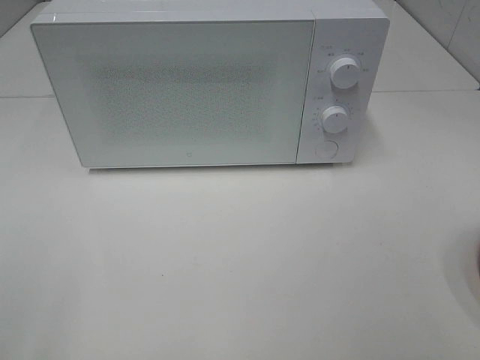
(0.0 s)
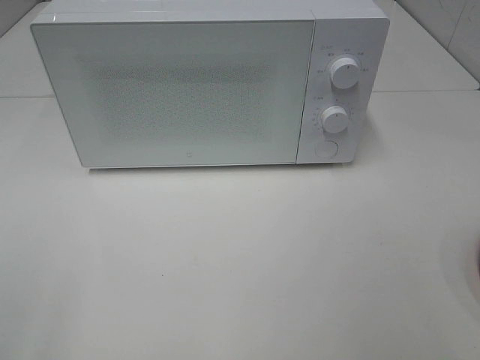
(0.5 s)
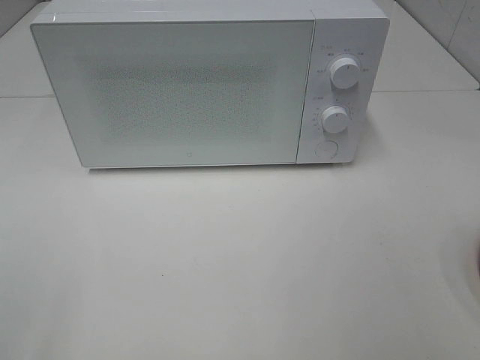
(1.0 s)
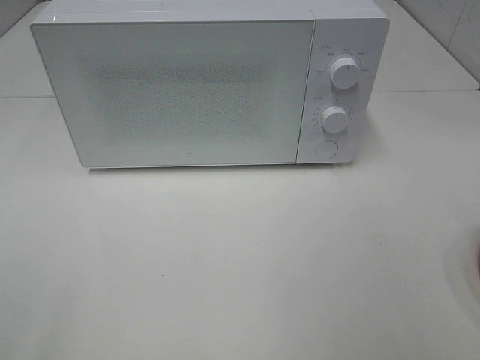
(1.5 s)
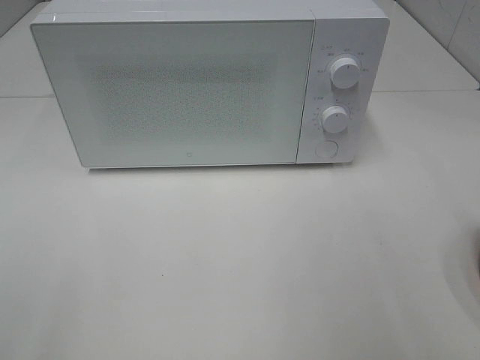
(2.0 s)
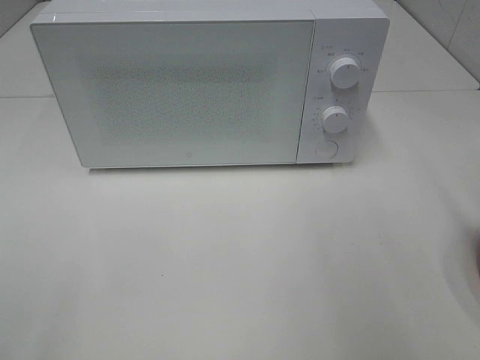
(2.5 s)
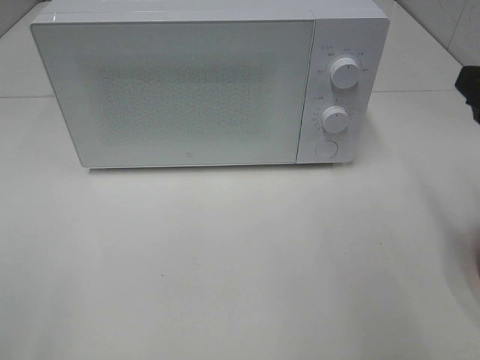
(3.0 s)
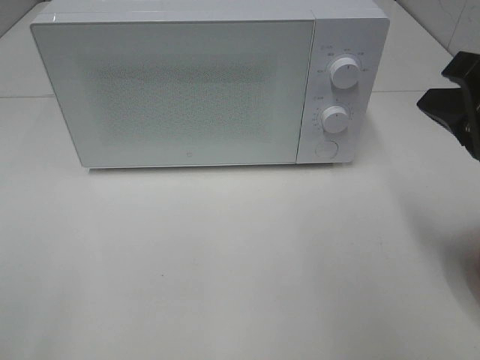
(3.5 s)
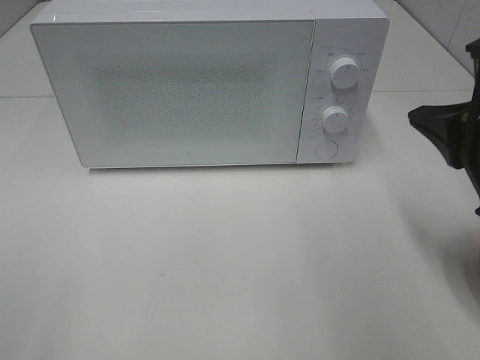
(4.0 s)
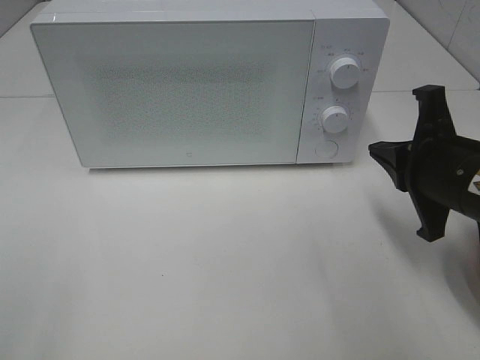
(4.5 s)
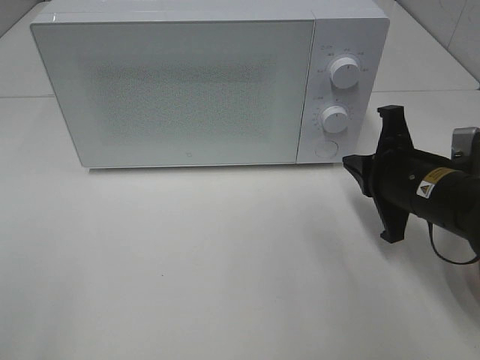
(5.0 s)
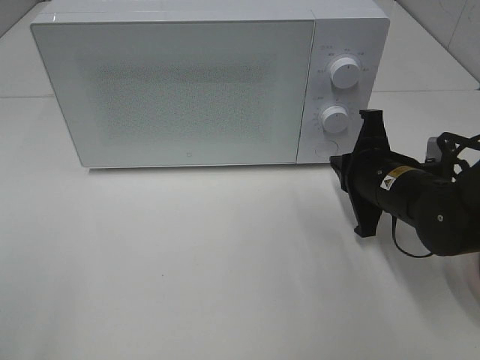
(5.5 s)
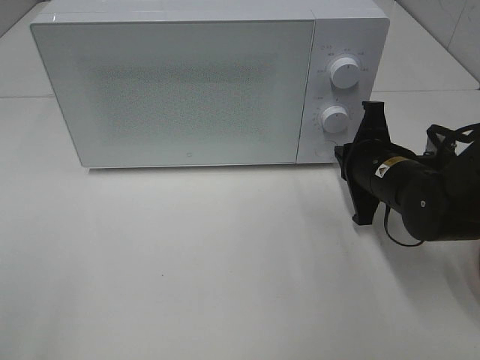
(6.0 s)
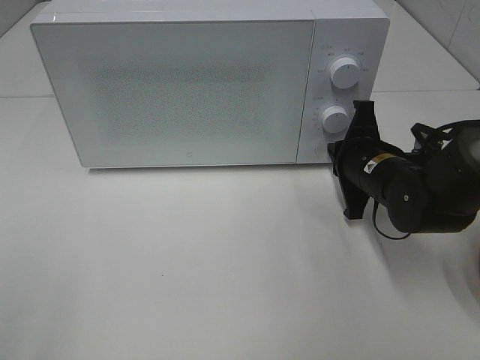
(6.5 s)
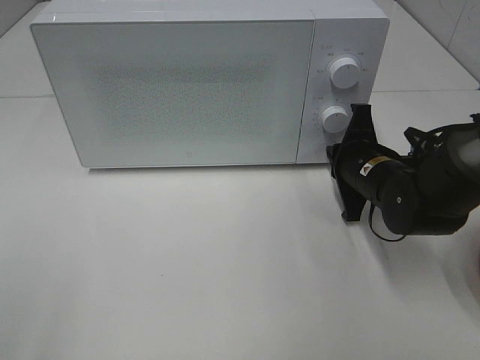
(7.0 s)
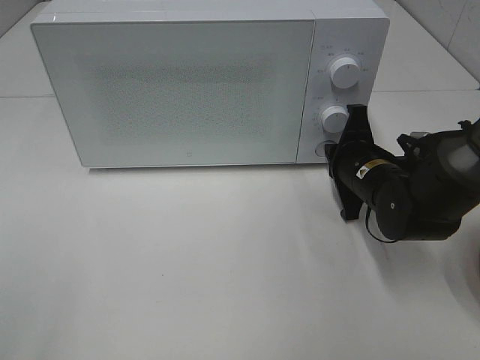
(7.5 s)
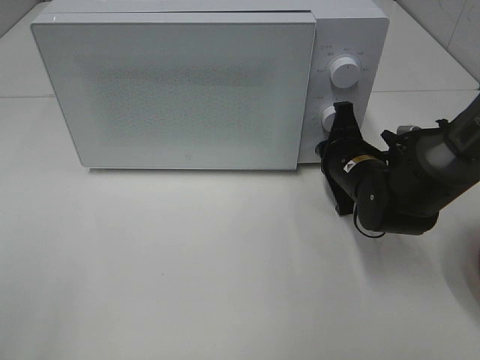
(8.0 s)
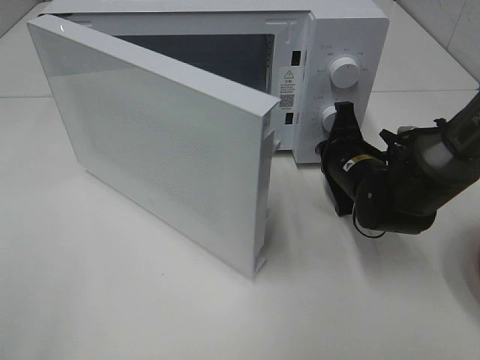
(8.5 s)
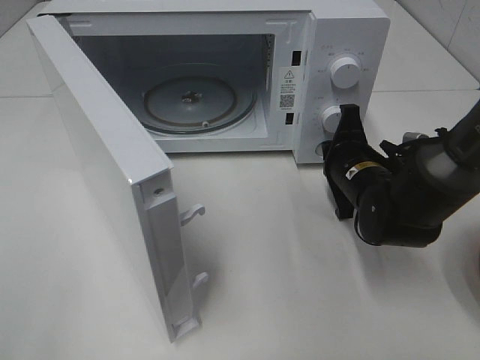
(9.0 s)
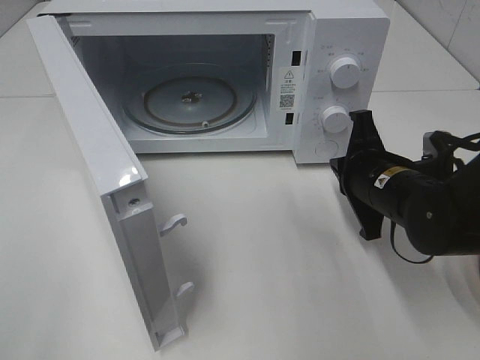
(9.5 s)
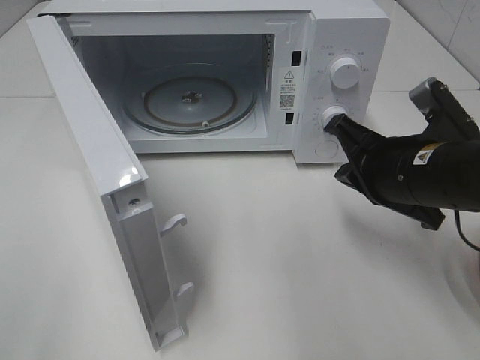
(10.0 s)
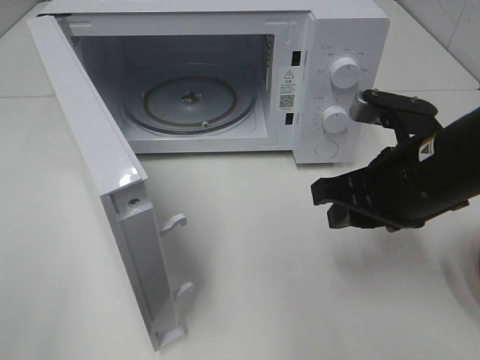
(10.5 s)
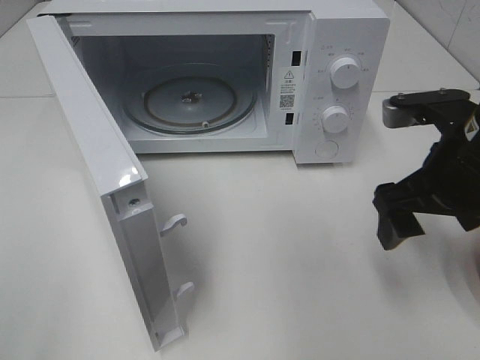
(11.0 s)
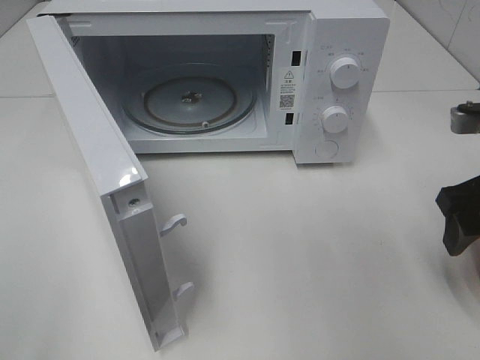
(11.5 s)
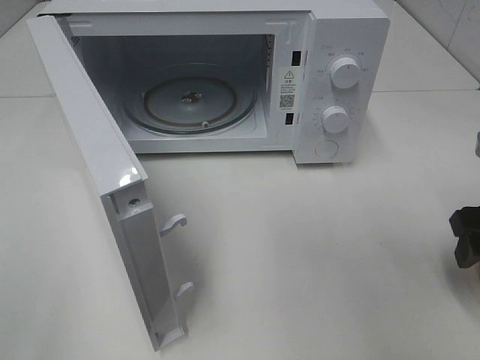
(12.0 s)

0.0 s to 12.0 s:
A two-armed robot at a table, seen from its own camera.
Task of the whole recording: Heat the burger.
Step, 0.0 to 9.0 s: Right hand: press the switch.
2.0 to 4.0 s: The right gripper shifts about 15 cm downward, forward and to the left, and closes up.
4.0 to 6.0 s: The right gripper travels downward and forward by roughly 20 cm.
6.0 to 8.0 s: The grippers make only small movements.
8.0 to 10.0 s: The right gripper is displaced backward and upward by about 15 cm.
10.0 to 12.0 s: The right gripper heads to the right, covering roughly 10 cm, and opens its fingers.

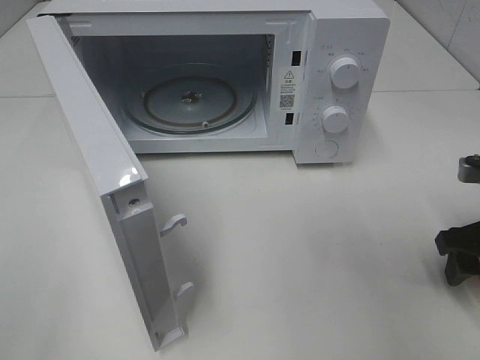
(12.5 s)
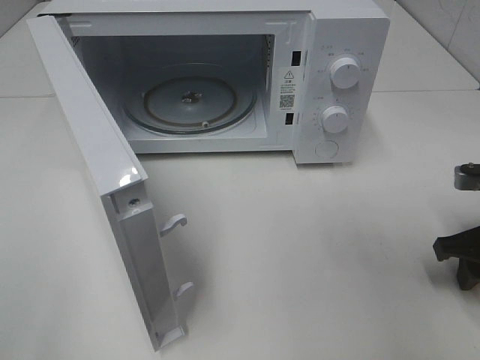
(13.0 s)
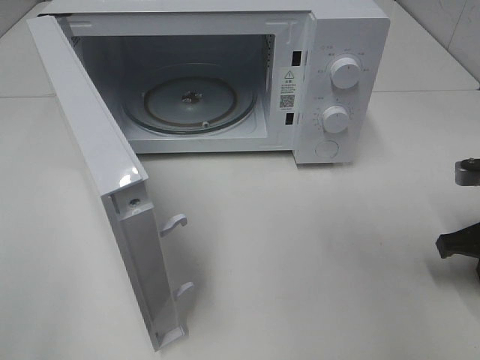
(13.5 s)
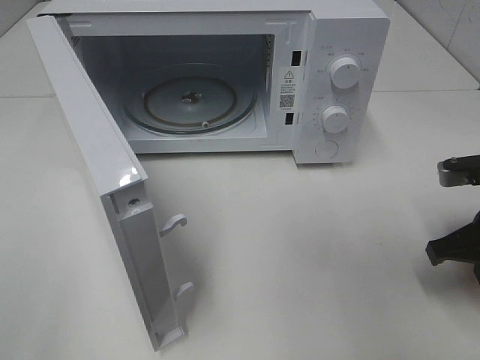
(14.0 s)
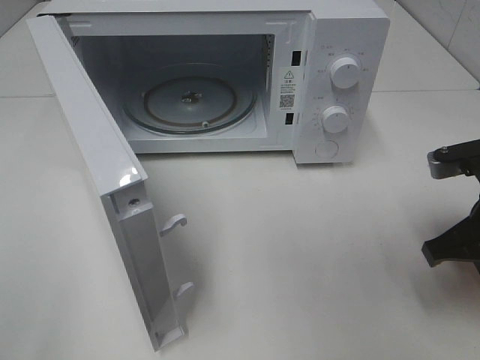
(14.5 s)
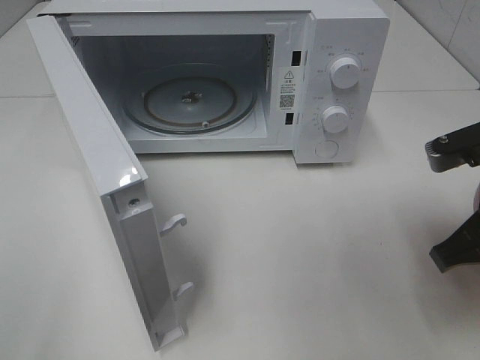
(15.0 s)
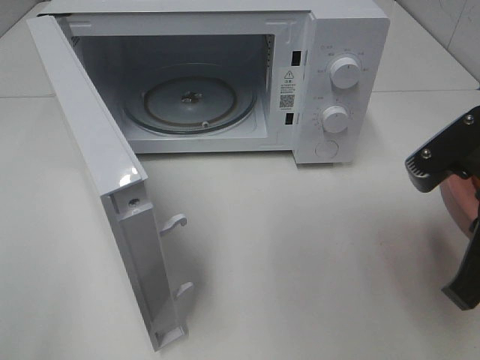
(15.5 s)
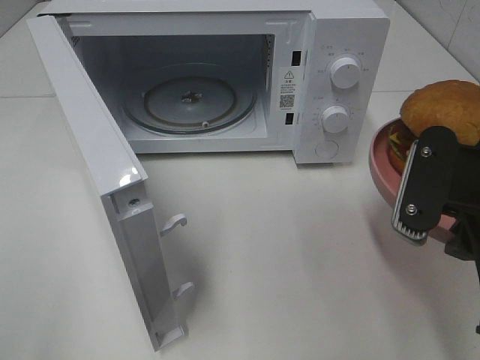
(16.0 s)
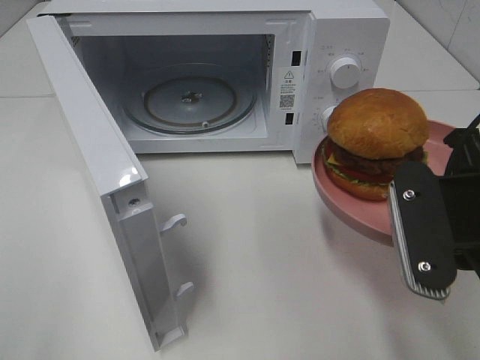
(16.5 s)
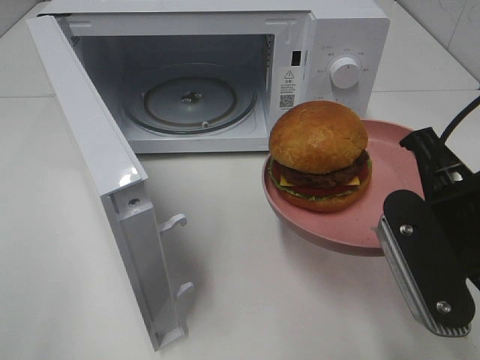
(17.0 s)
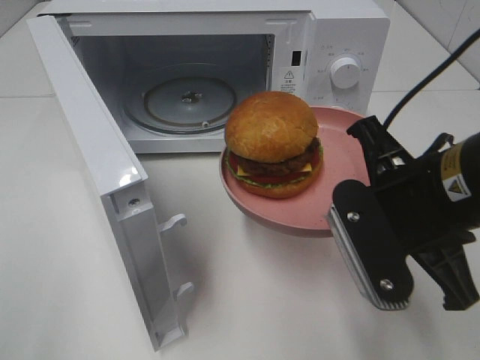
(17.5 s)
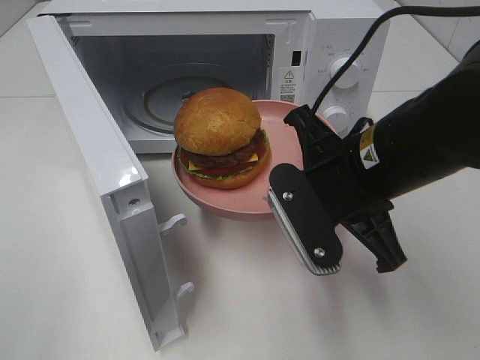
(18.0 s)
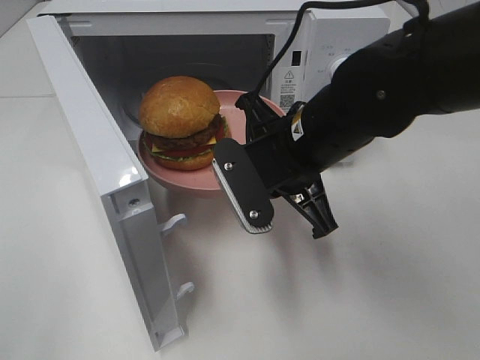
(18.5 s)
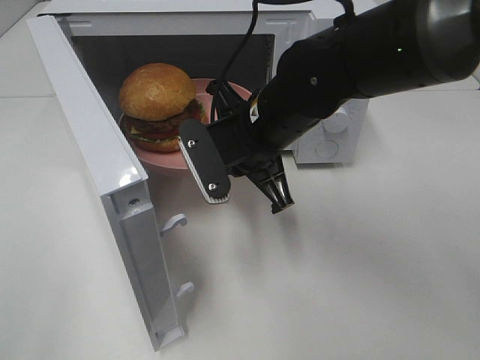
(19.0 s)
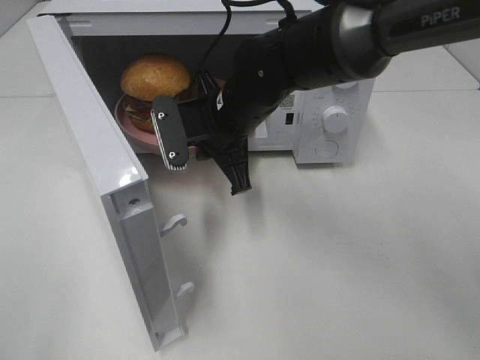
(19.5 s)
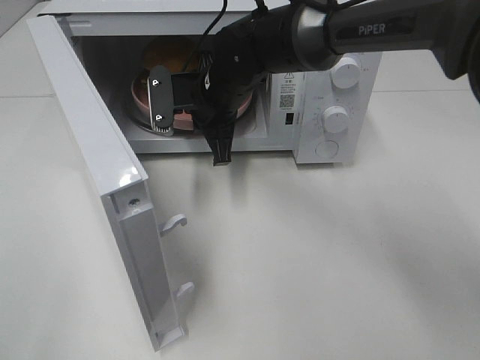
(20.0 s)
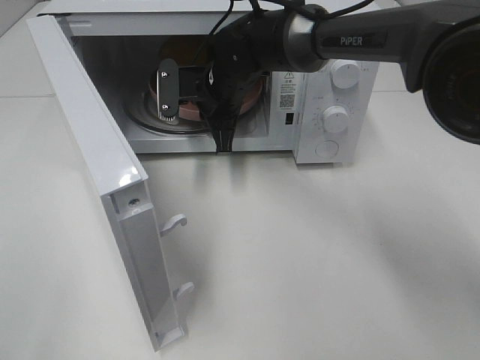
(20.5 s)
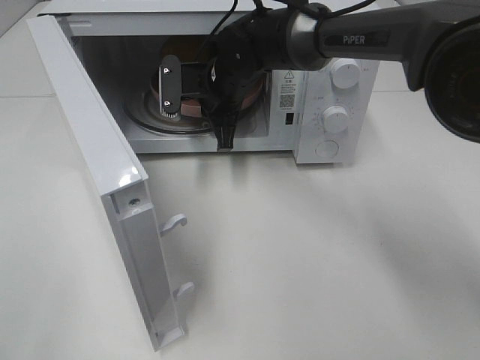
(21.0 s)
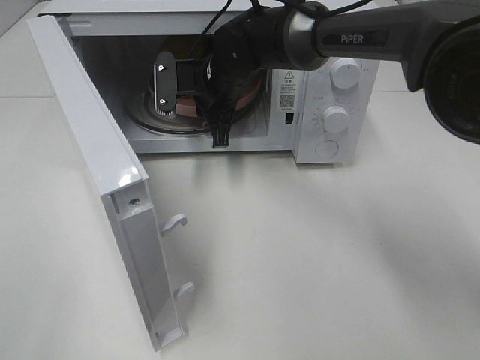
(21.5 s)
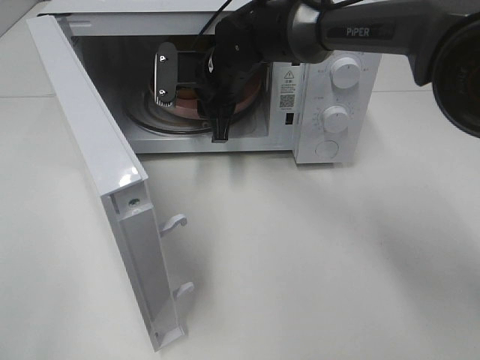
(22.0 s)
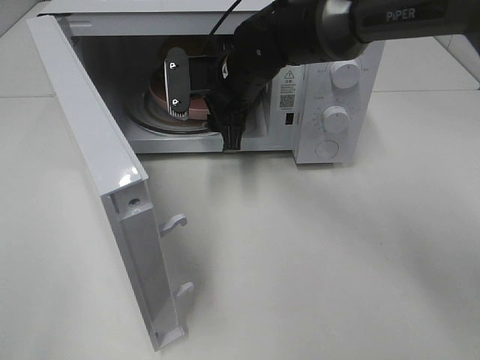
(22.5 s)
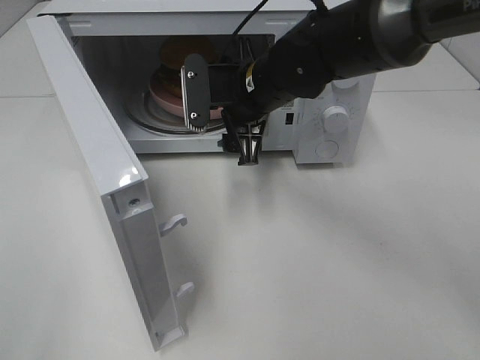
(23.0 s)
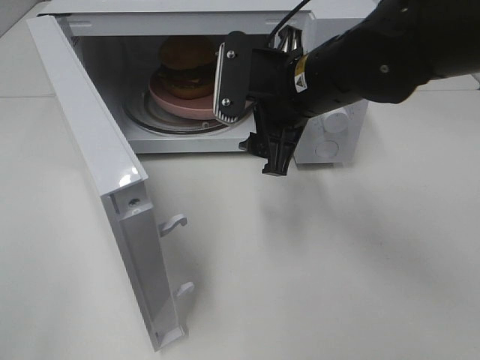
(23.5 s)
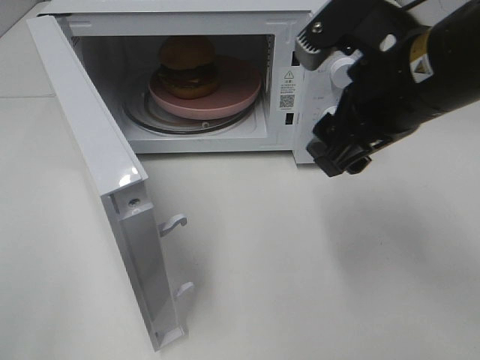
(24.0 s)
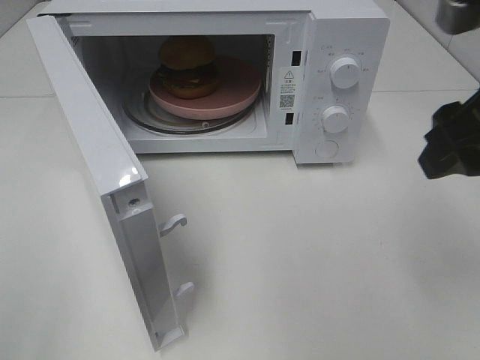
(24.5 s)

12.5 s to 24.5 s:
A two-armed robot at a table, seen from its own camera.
Task of the whole recording: Heat the burger.
Step, 13.5 to 21.5 s: Right hand: place the plate in the microwave.
12.5 to 14.5 s: The right gripper changes place by approximately 5 cm, and closes.
14.5 to 16.5 s: The right gripper moves upward, to the left and backward, roughly 10 cm.
16.5 to 18.5 s: The right gripper travels to the left and forward by about 15 cm.
18.5 to 20.5 s: The right gripper goes about 20 cm forward and to the left.
20.5 to 22.5 s: The right gripper opens.
22.5 to 24.5 s: The right gripper is displaced backward, to the right and upward by some 35 cm.

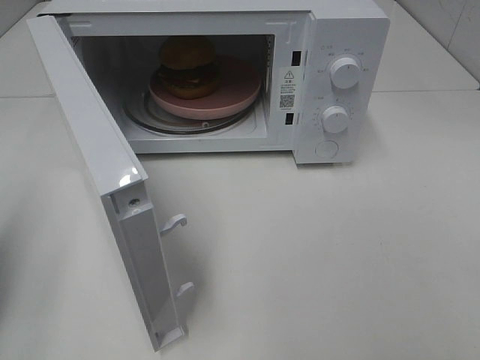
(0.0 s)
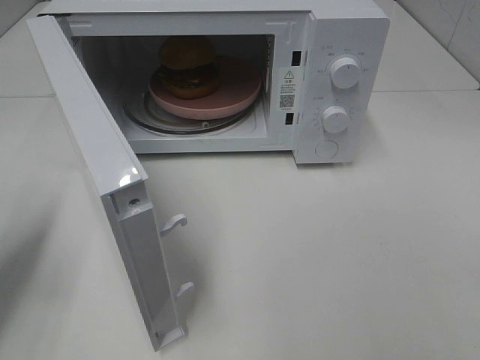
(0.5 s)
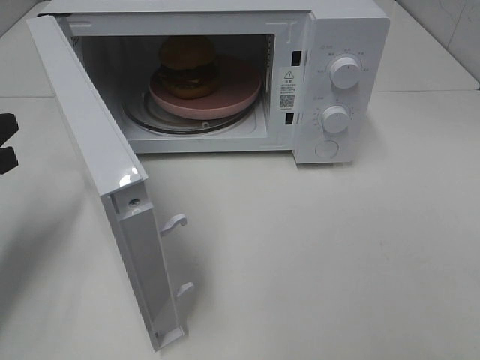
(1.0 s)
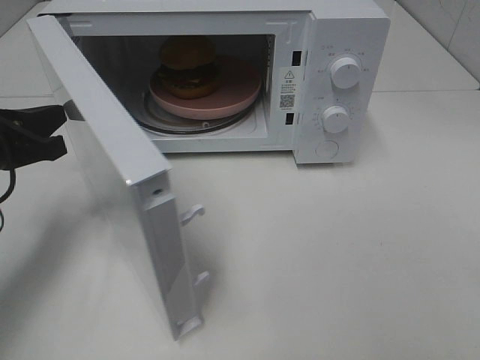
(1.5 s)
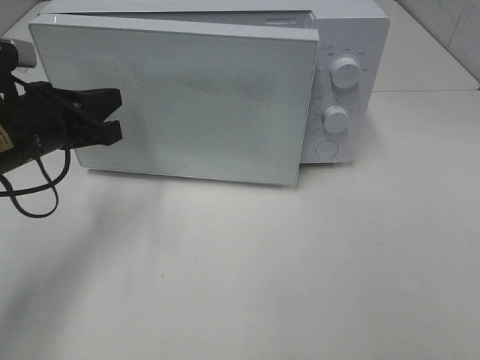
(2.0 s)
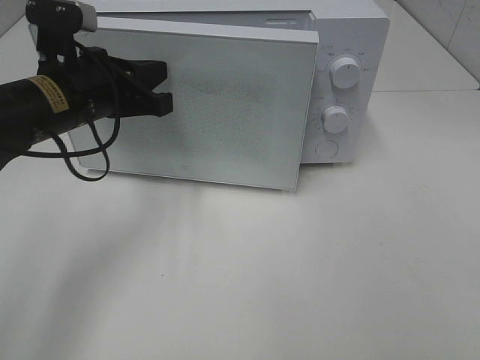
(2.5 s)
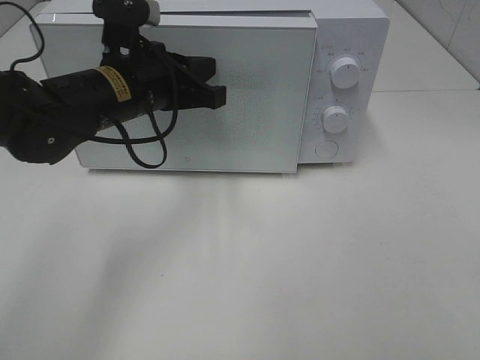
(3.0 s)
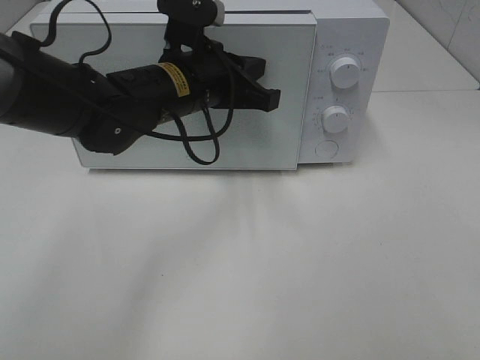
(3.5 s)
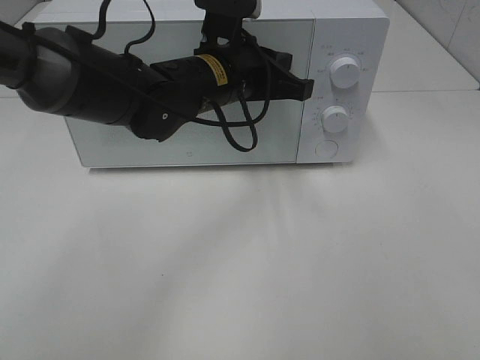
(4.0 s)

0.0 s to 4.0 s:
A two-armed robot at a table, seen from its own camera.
Task of the whole recording: Heat the burger.
Step, 0.0 to 4.0 s: Left hand: close the microwave door.
0.0 to 2.0 s: The left gripper goes roughly 20 cm to the right and forward.
2.0 to 4.0 s: The left gripper is displaced to the right by roughly 20 cm.
